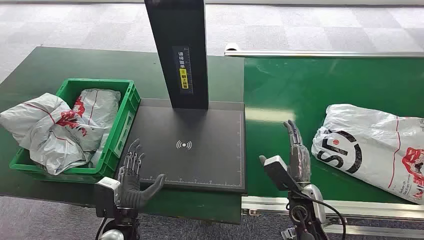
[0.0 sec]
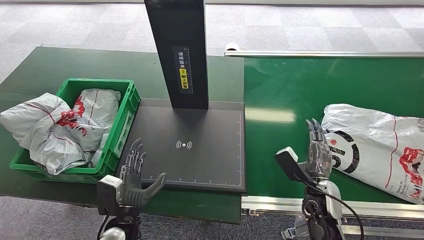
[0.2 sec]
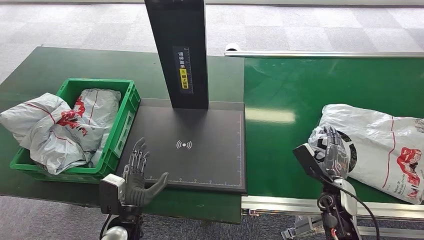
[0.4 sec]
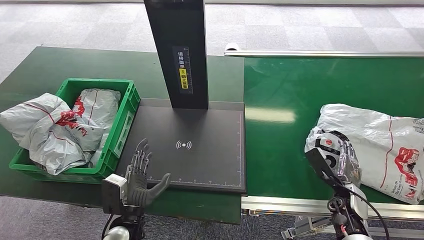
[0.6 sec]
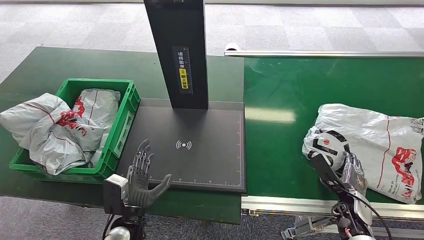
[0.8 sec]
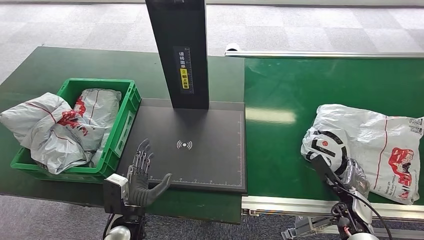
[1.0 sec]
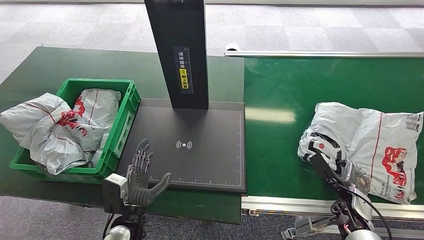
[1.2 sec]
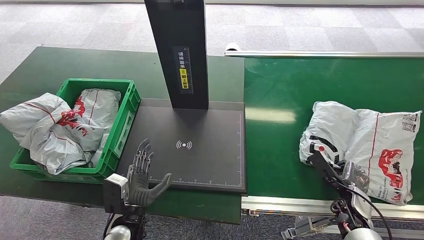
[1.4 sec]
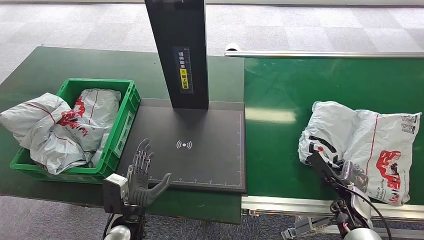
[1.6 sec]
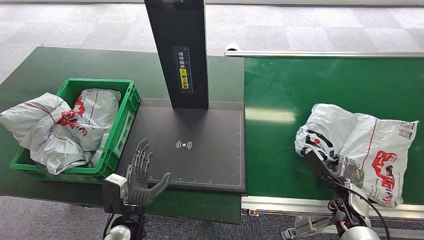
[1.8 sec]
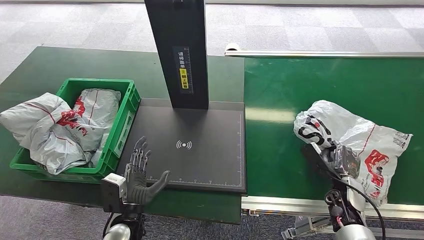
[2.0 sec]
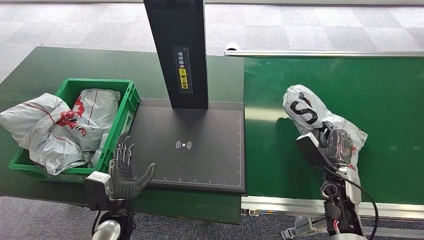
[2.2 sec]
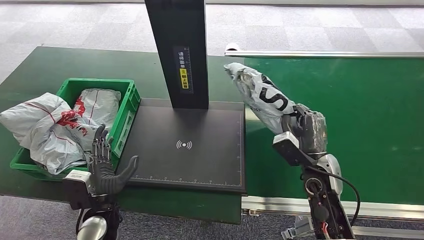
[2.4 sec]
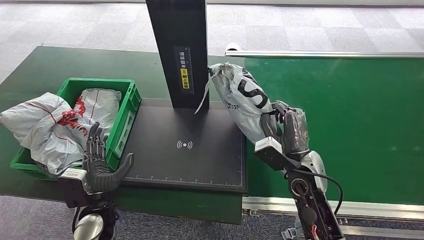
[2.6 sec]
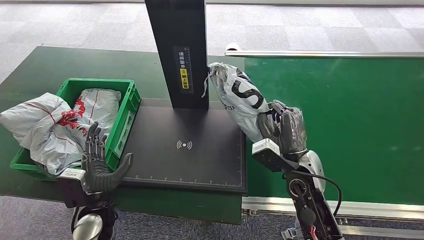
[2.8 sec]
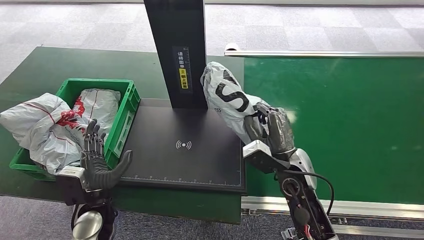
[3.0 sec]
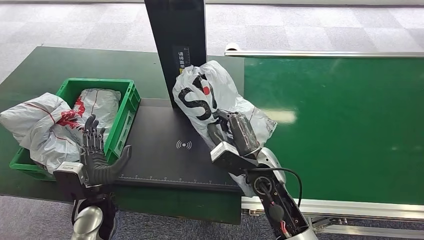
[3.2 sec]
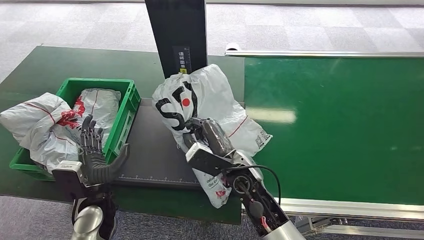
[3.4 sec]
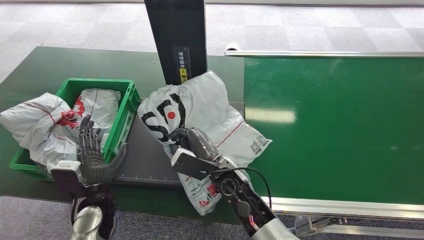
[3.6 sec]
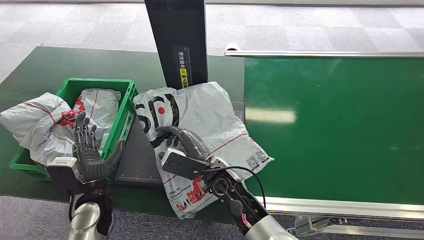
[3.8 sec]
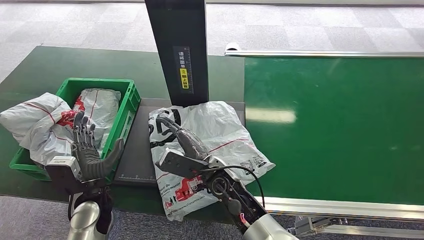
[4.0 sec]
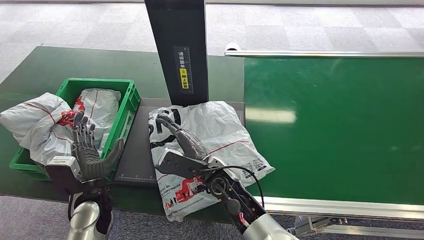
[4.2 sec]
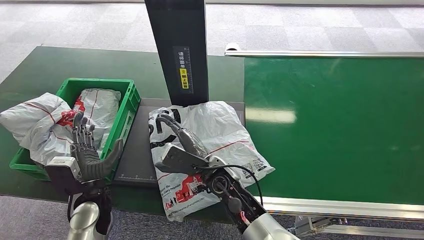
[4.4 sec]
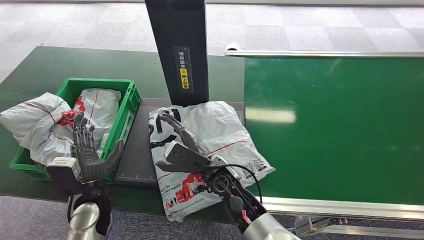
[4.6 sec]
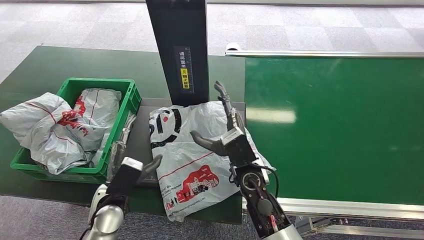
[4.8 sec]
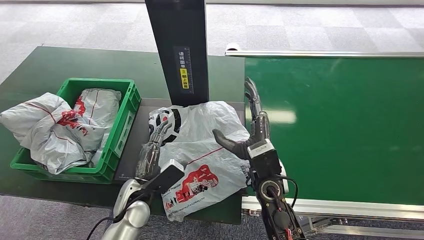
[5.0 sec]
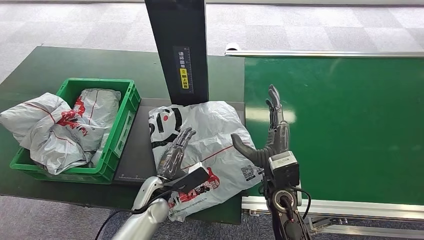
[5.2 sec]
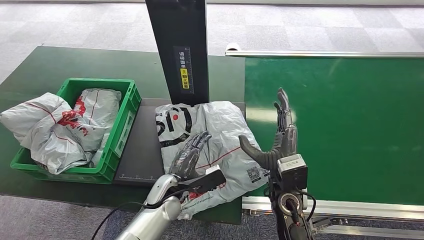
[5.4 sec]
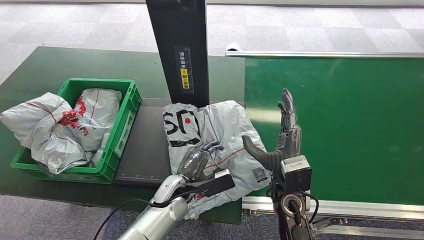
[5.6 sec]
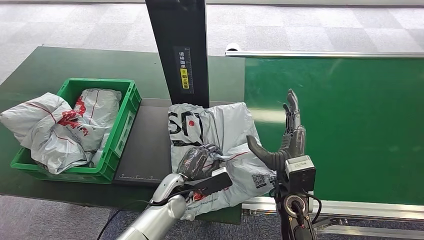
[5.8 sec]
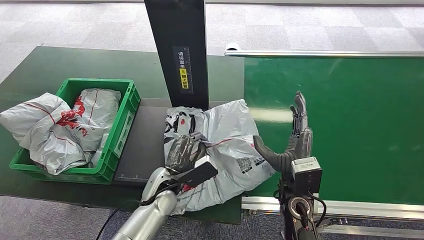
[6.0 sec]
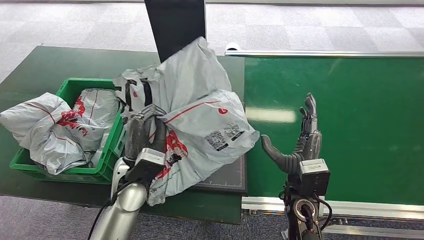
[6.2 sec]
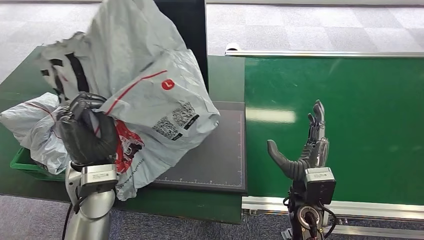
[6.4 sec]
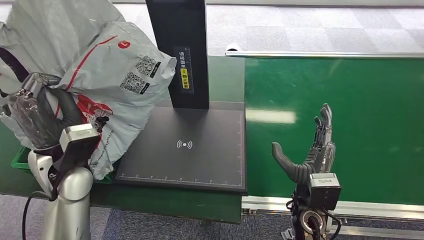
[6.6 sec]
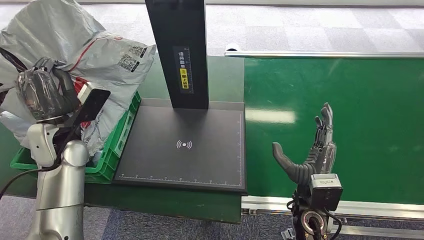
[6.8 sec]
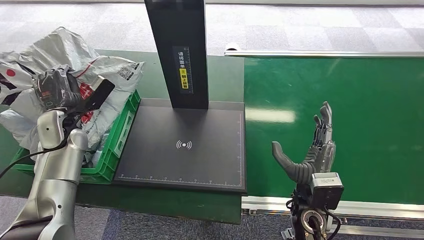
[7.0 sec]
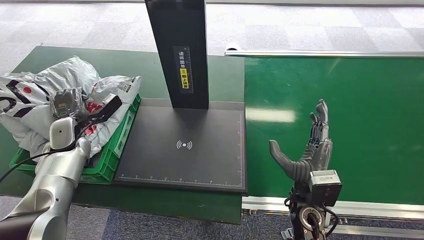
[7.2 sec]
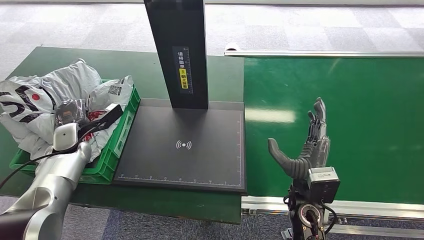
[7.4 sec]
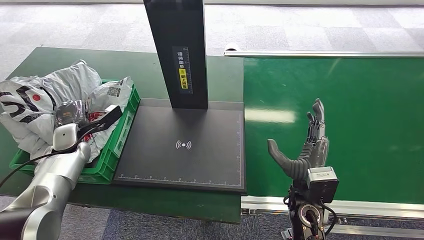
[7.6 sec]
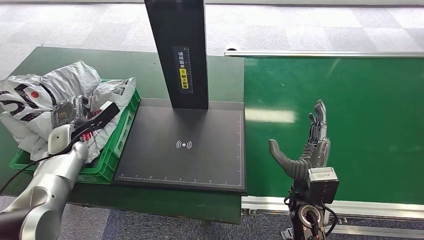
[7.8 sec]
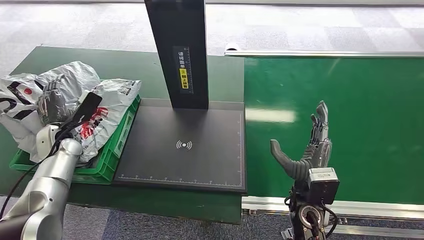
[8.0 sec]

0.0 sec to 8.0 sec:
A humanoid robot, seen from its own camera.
Step, 0.0 sec to 2.2 sec: Pick up the package from the conveyor belt.
Step, 2.4 sec to 4.0 sec: Place the package onto the inbound machine.
Step, 4.2 sec to 6.0 sec: Pick up the package from the inbound machine.
Step, 6.4 sec to 7.8 sec: Place the package into the parcel locker.
